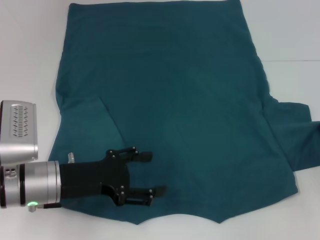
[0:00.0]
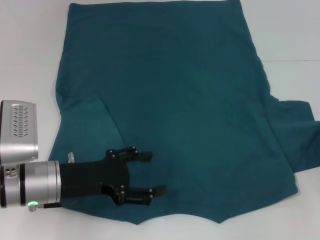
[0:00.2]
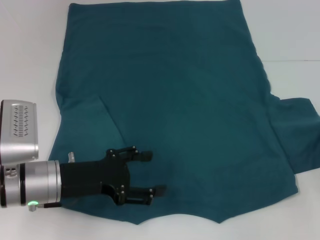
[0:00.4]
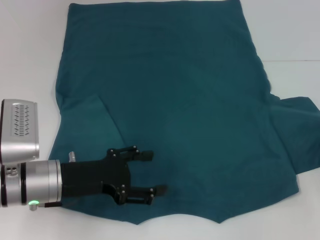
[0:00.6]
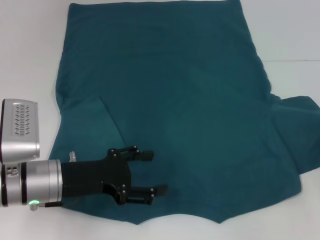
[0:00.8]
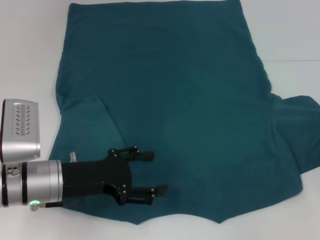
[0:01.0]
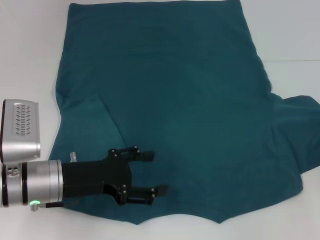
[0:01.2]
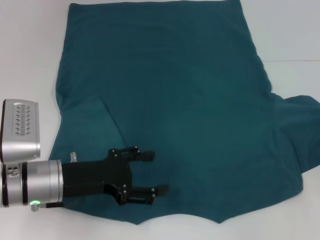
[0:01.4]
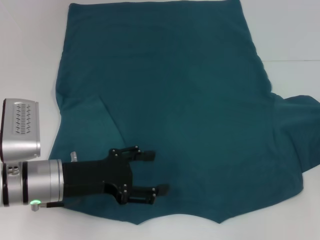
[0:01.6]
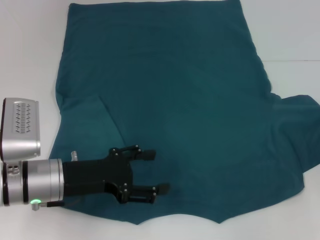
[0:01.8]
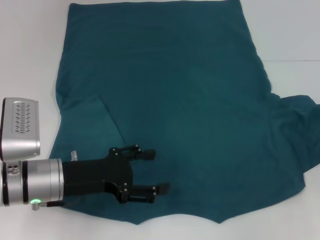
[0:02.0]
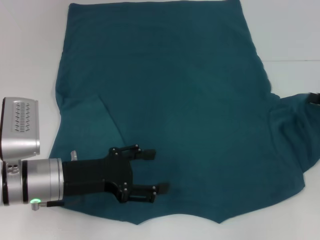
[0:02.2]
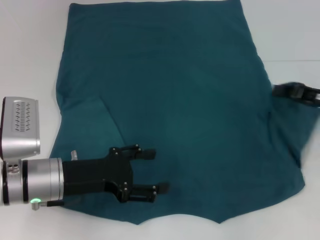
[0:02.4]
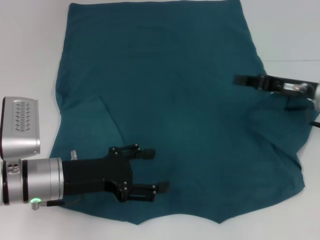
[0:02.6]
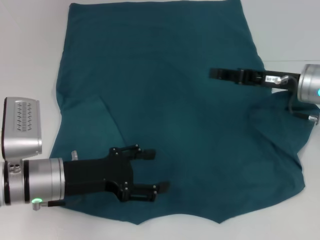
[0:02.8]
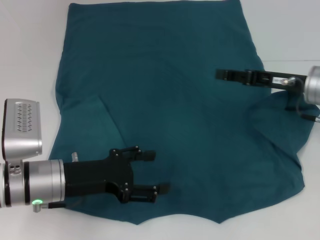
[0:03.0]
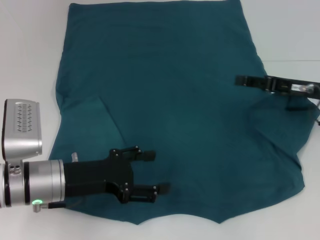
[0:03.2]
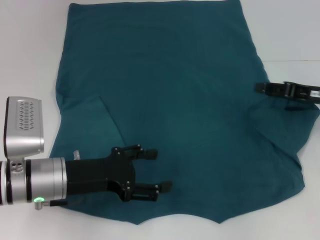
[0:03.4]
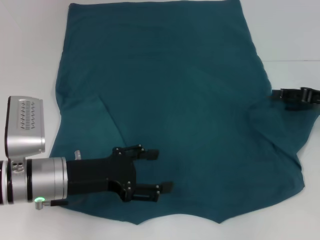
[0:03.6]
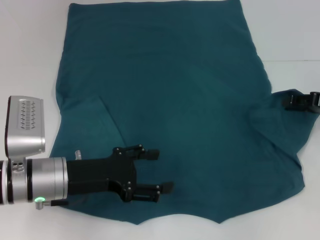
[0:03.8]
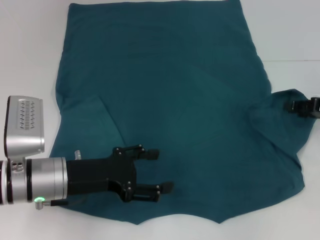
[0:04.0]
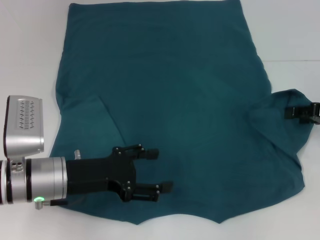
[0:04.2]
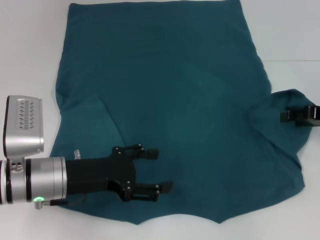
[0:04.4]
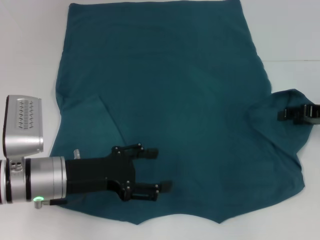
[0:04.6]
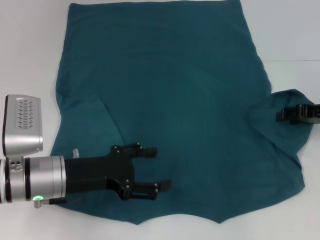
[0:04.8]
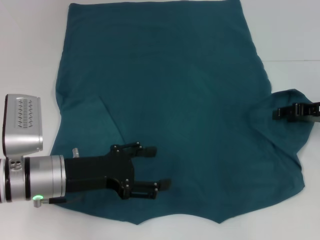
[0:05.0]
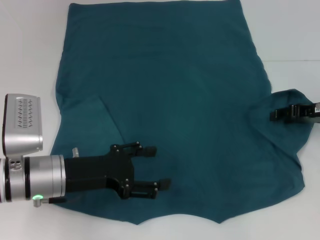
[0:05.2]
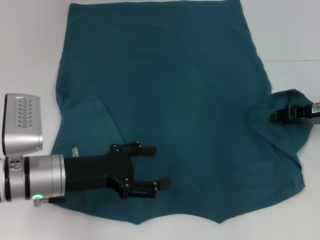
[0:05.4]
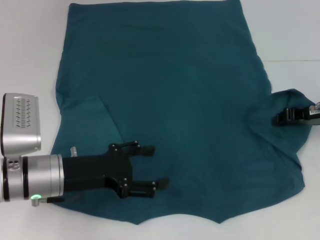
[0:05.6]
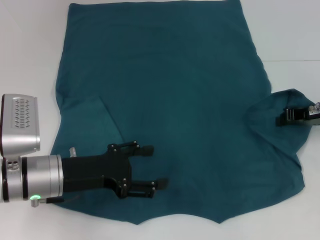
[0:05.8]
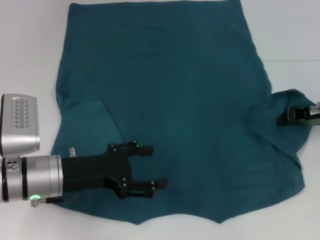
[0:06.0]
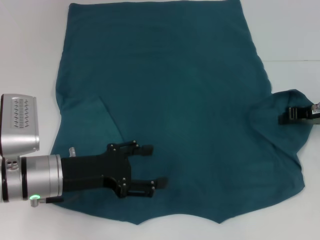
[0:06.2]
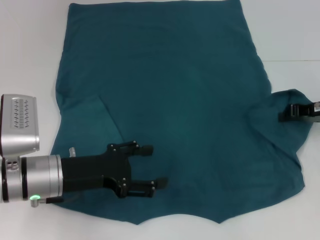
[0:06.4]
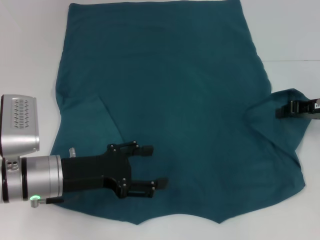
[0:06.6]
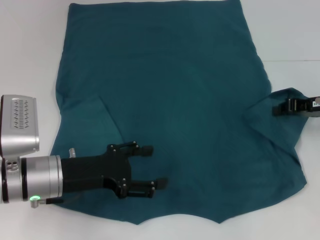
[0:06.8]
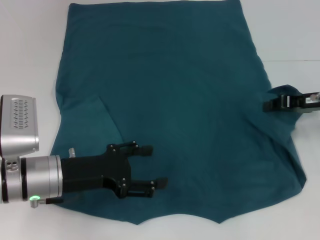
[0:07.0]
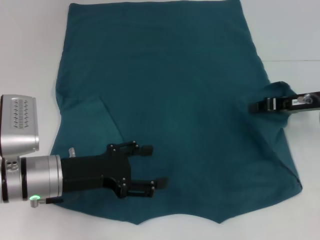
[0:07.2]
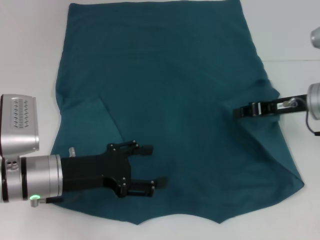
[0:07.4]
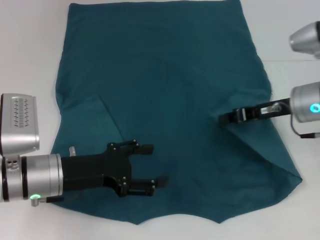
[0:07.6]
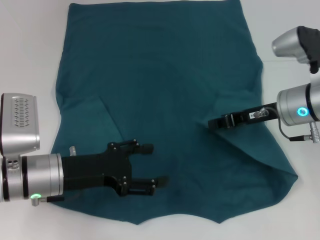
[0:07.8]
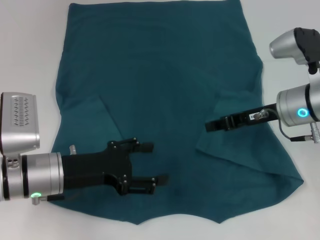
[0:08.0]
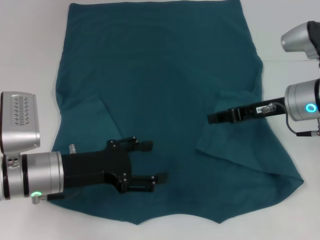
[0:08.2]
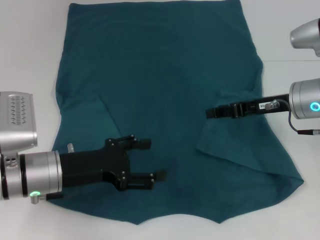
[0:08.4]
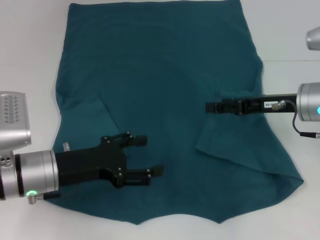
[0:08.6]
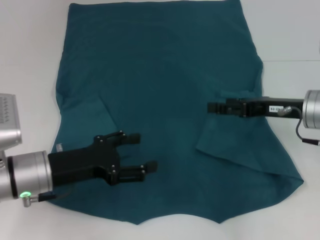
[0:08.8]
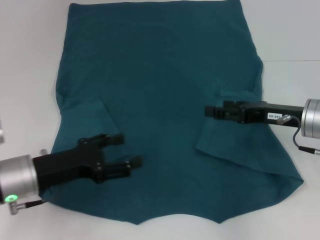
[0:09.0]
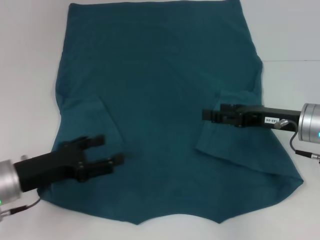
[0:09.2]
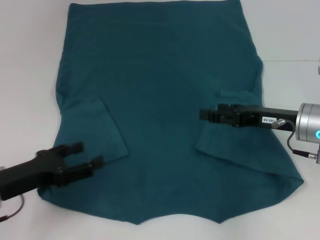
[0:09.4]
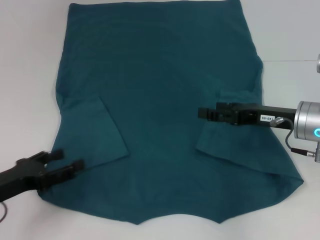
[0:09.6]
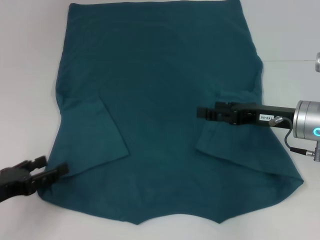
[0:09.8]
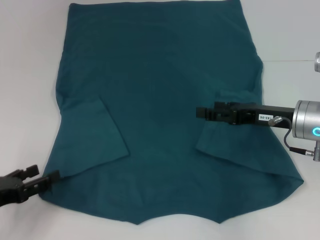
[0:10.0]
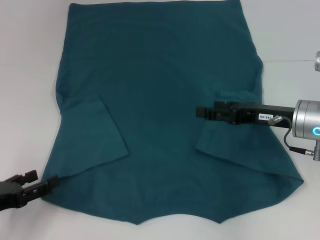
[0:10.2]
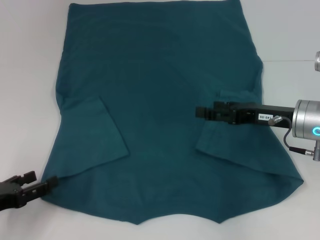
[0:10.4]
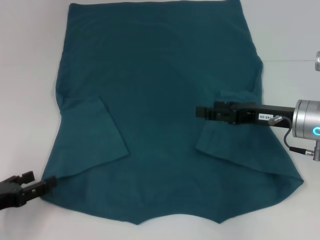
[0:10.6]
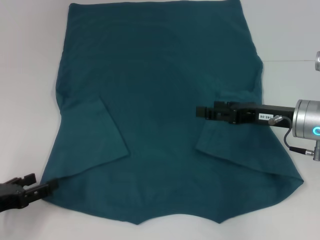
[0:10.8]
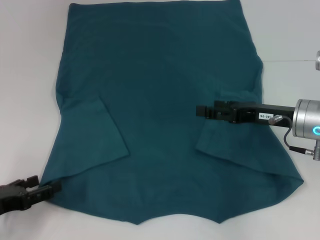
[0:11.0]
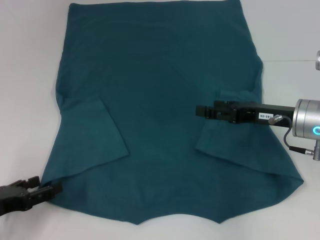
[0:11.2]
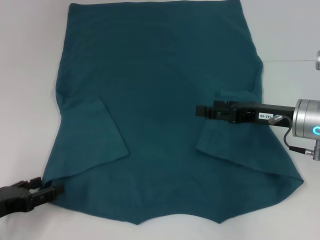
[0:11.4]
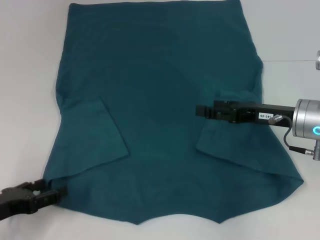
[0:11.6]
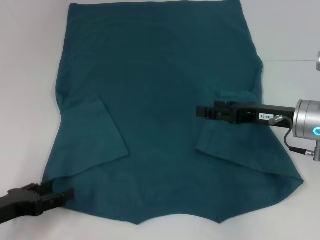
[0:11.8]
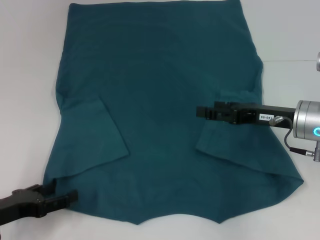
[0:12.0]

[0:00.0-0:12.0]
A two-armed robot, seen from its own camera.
Step, 0:00.0 to 0:08.4: Fold the bottom right sleeve to the right.
0:00.0 to 0:01.6: The grippers make only small movements.
0:01.6 to 0:03.0: The right gripper shifts about 15 cm to the left.
0:03.0 to 0:04.4: The right gripper is displaced to the right by approximately 10 cm, and opens its fingers.
0:04.4 to 0:06.0: The right gripper closes.
0:06.0 to 0:07.6: The right gripper is displaced to the left by roughly 5 cm.
0:07.6 to 0:09.0: The right gripper opens.
0:09.0 to 0:10.4: The left gripper is displaced to the left and backward by roughly 10 cm.
0:10.4 to 0:12.0: The grippers stay close to where they were, moving slightly.

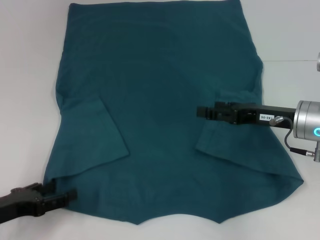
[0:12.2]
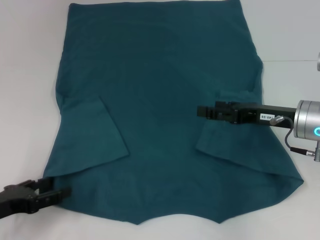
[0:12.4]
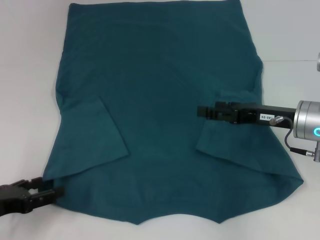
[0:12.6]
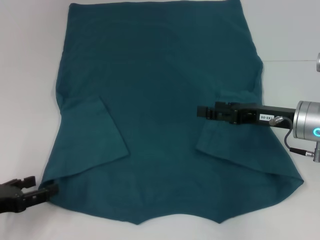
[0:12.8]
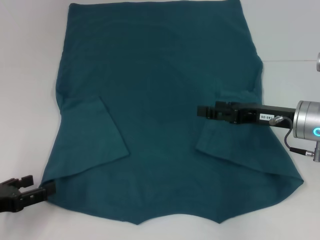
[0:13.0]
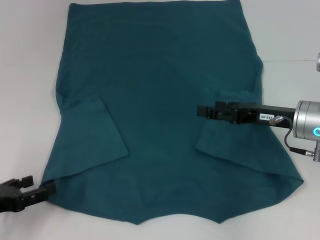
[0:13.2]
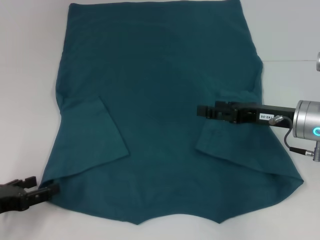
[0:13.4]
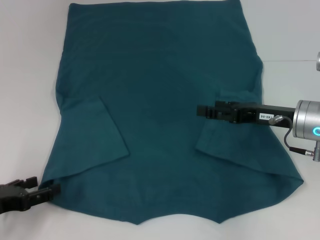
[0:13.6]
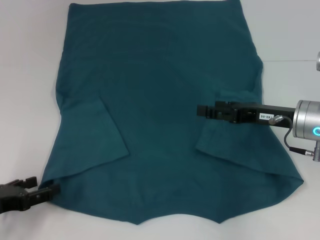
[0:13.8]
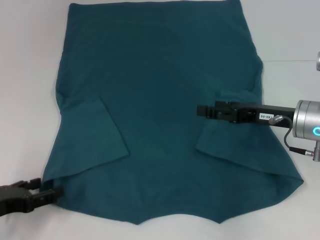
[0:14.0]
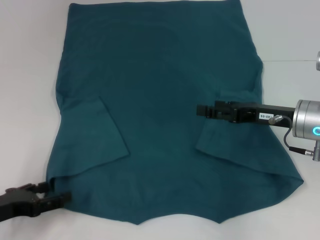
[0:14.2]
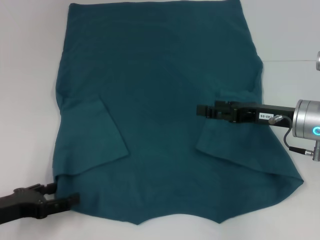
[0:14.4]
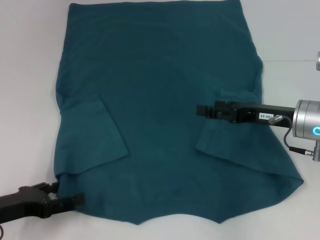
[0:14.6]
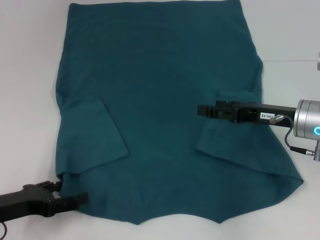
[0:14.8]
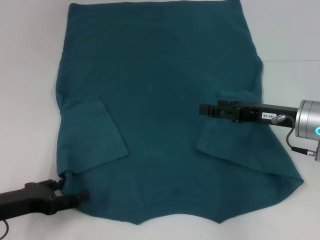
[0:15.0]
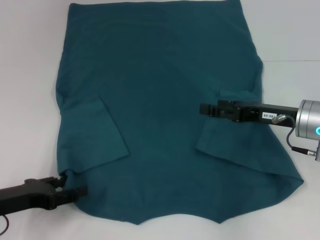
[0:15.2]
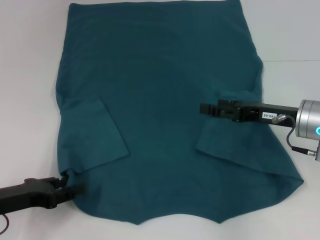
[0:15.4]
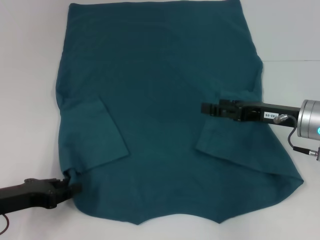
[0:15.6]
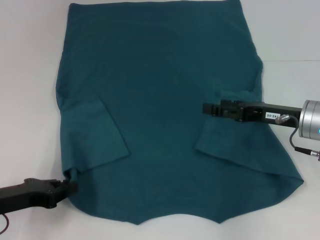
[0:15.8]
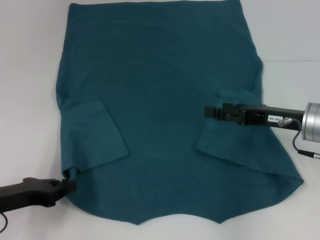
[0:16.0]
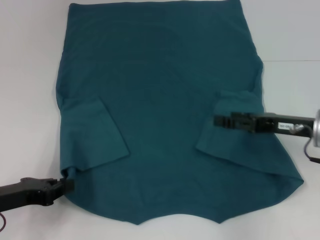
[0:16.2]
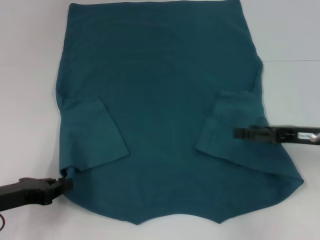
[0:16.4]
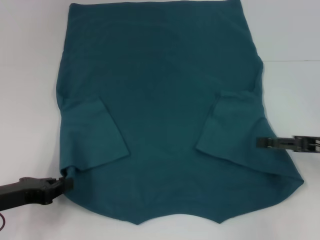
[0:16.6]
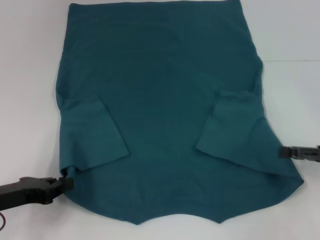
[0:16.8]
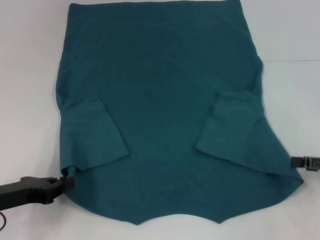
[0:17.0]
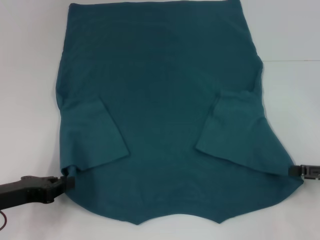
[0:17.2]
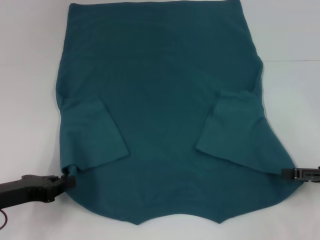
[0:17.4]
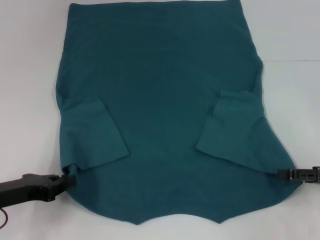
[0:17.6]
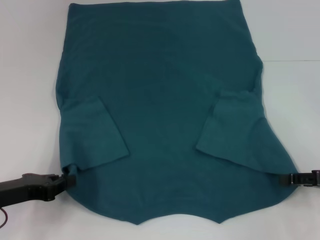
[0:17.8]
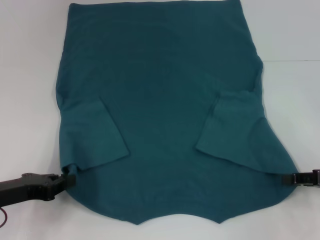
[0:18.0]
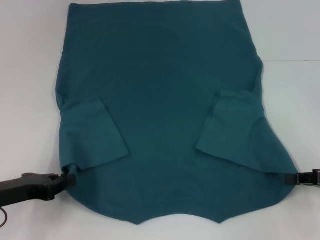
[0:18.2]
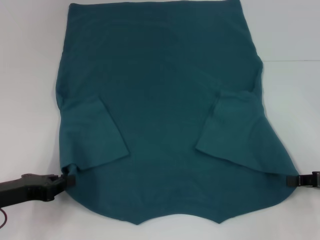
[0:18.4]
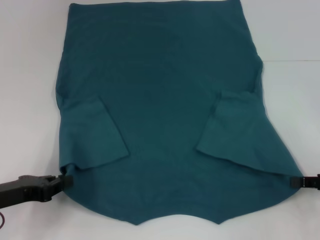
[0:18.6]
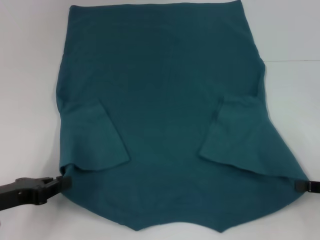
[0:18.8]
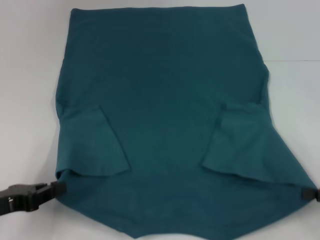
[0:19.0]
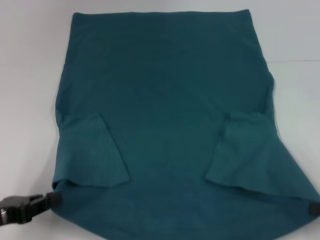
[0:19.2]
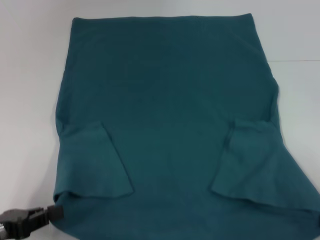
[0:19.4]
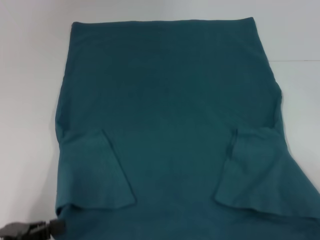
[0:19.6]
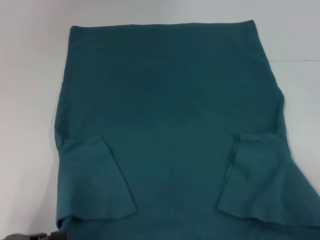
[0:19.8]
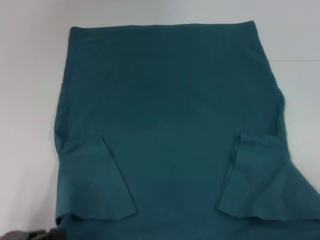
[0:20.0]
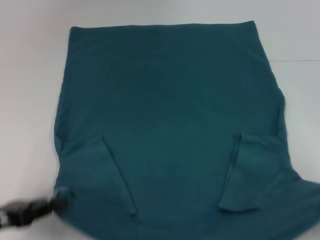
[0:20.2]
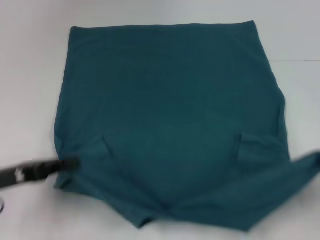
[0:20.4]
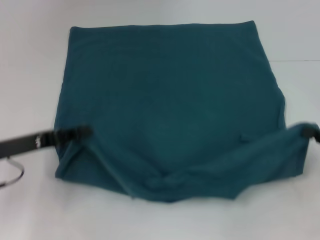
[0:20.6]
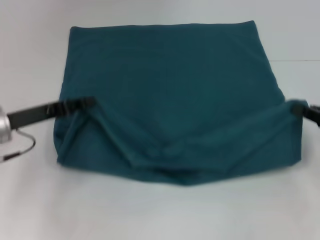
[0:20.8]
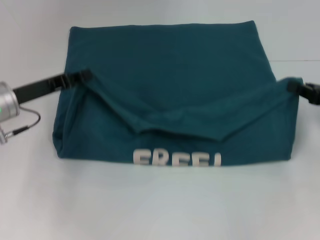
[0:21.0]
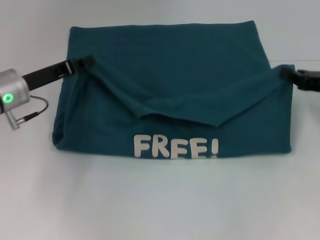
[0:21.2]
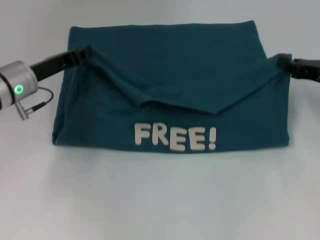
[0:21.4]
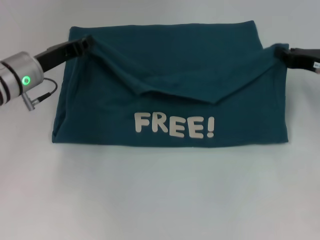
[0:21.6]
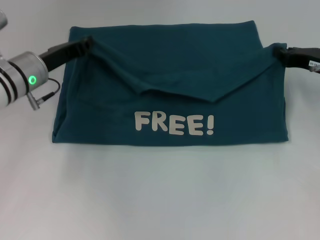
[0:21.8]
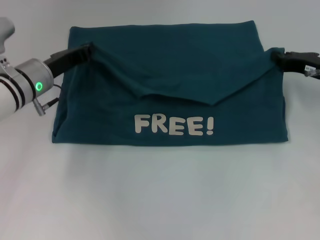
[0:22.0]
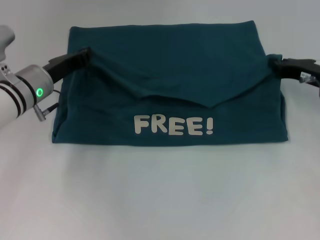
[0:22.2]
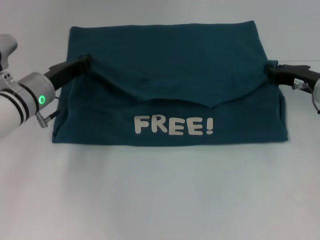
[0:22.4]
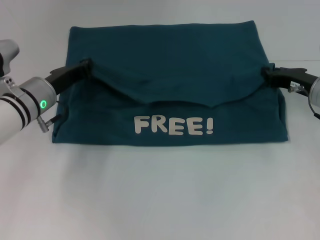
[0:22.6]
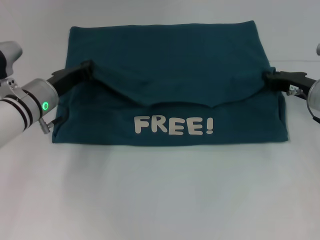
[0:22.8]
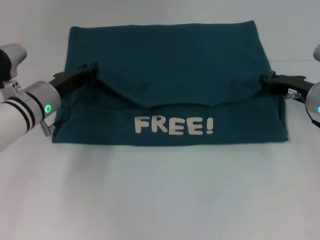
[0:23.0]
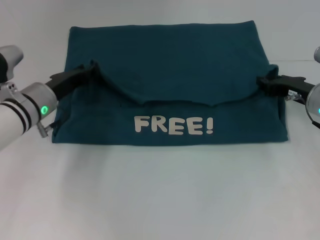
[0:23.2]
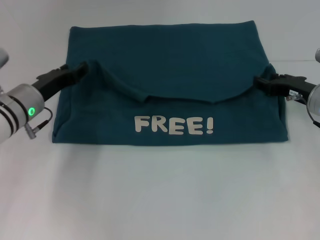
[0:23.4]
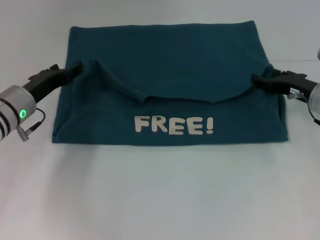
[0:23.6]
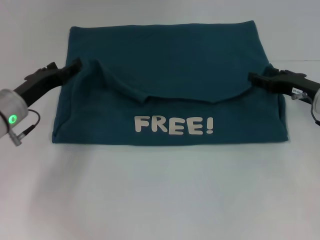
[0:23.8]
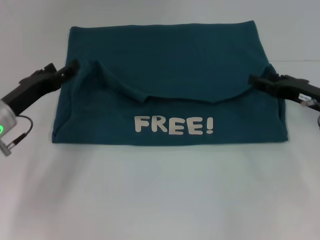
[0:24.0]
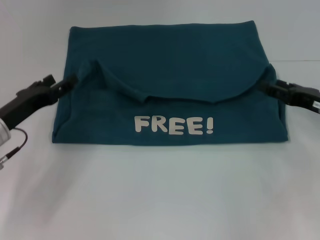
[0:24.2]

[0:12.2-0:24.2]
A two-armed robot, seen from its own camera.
Step, 0:12.2 to 0:15.8: Grab the bottom left corner with your left hand.
Step, 0:16.0 to 0:19.4: Grab the bottom right corner with your right hand.
Step, 0:19.6 to 0:24.0: Fold the clothes to the left.
Step, 0:19.6 to 0:24.0: Fold the clothes to the right.
0:12.2 to 0:15.2: There are only small adjustments of the grippers.
0:15.2 to 0:16.6: The right gripper is displaced to the right by approximately 10 cm; the left gripper closes up.
0:16.6 to 0:18.2: The right gripper closes its fingers.
0:18.2 to 0:19.8: The grippers both shift backward by some 10 cm. The right gripper closes its fingers.
0:19.8 to 0:21.2: The grippers both shift forward by about 20 cm.
0:21.2 to 0:22.6: The right gripper moves to the left, roughly 5 cm. Meanwhile the left gripper shifts by approximately 5 cm.
0:22.6 to 0:24.2: The left gripper moves backward and to the left, roughly 10 cm, and opens. Meanwhile the right gripper moves backward, approximately 5 cm, and opens up.
